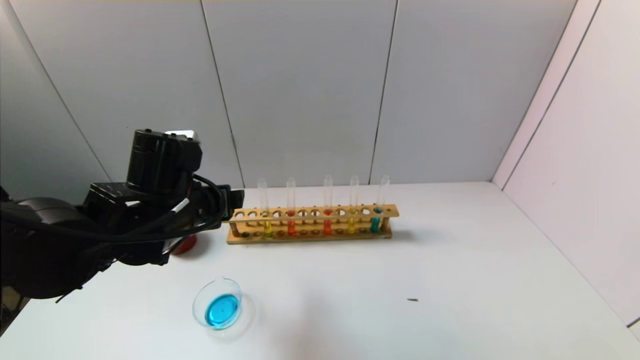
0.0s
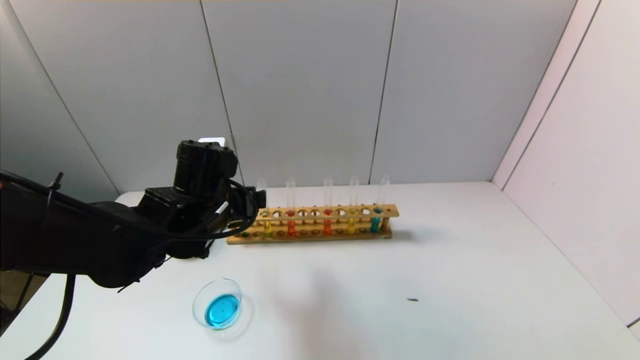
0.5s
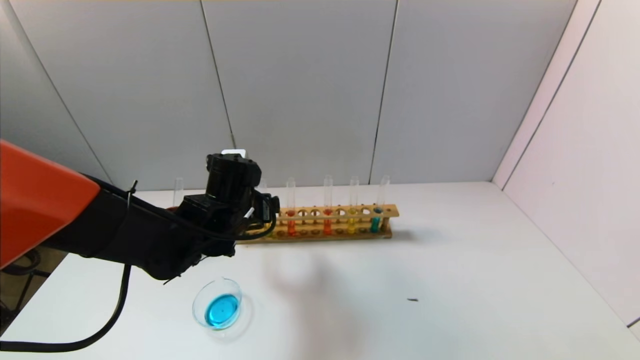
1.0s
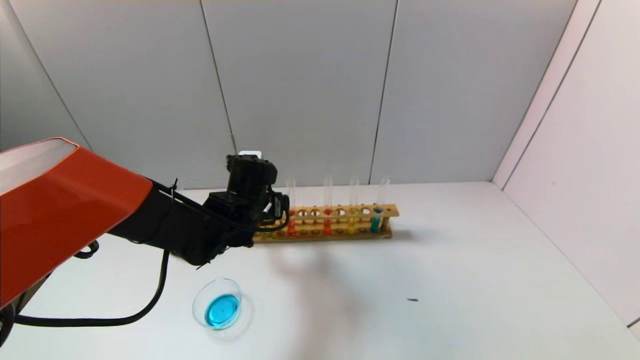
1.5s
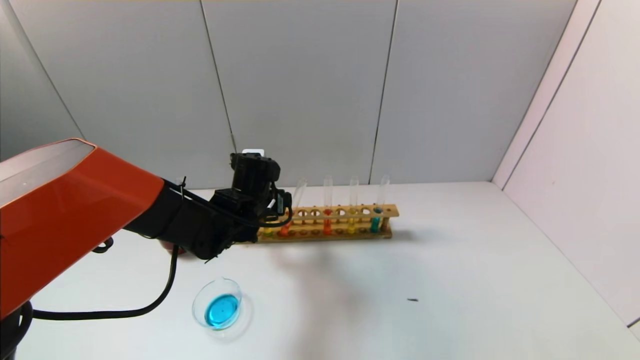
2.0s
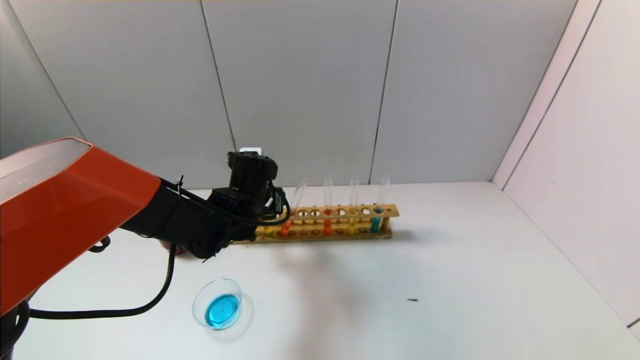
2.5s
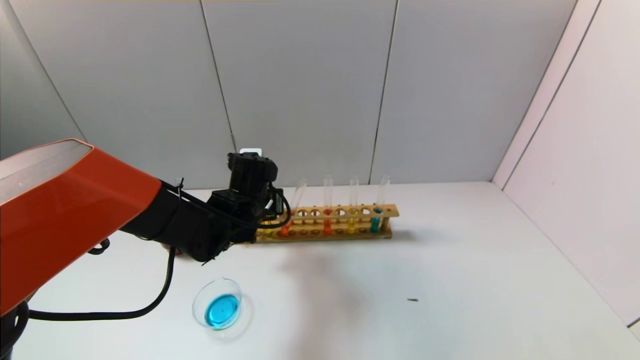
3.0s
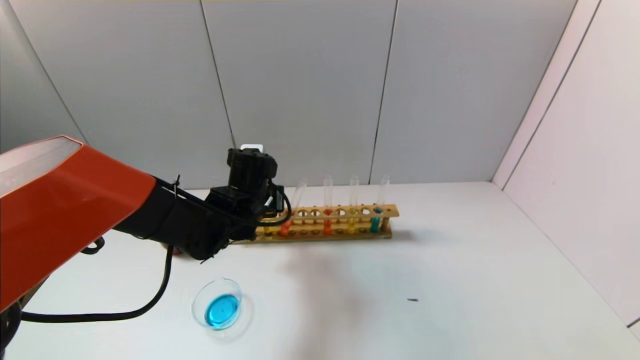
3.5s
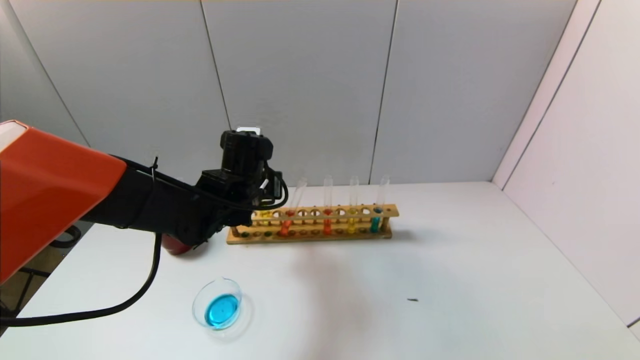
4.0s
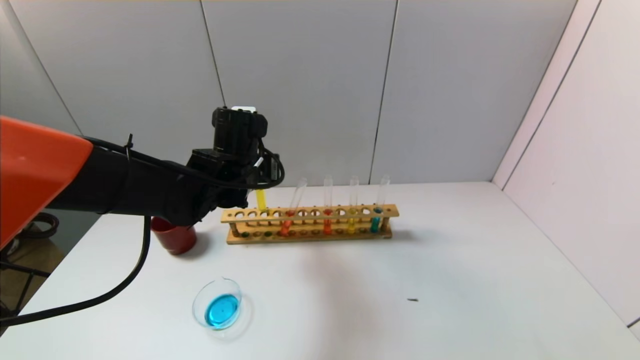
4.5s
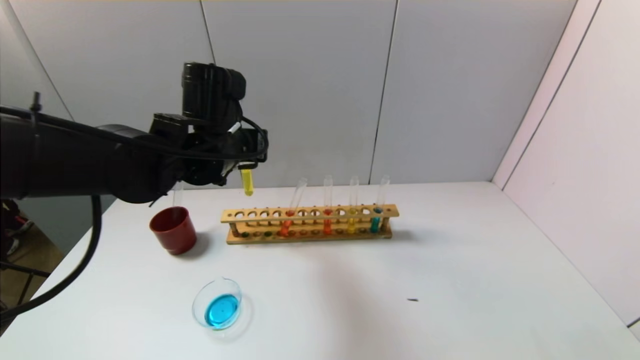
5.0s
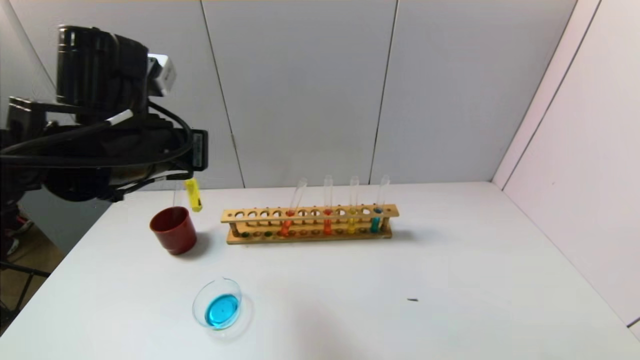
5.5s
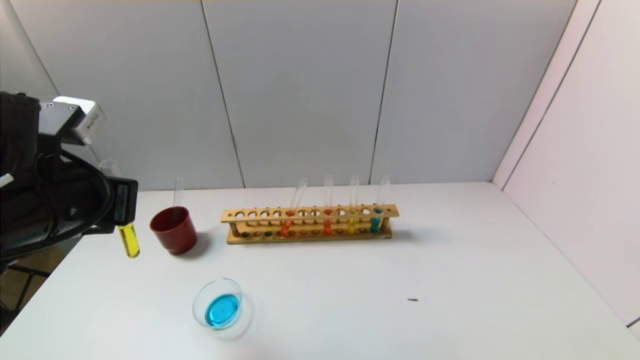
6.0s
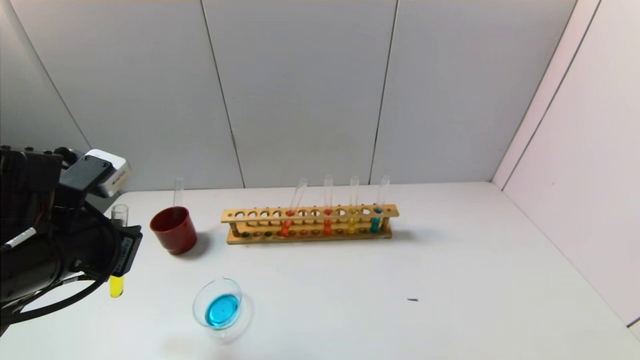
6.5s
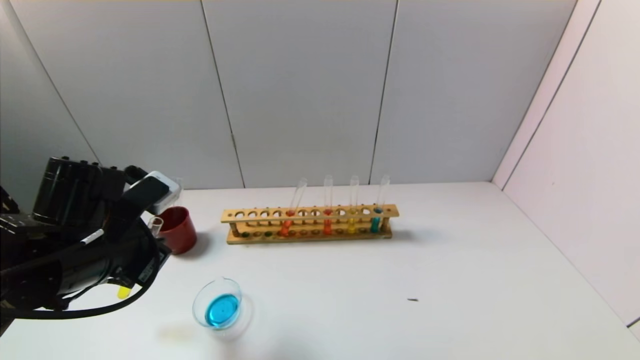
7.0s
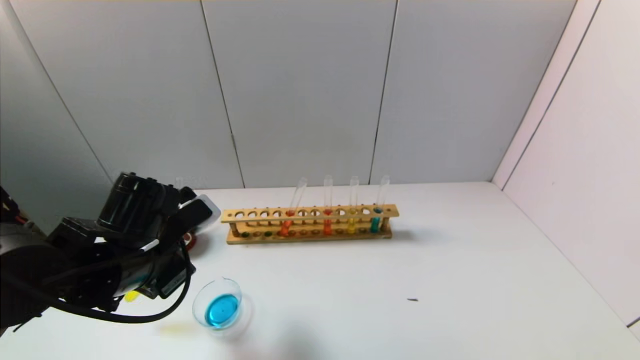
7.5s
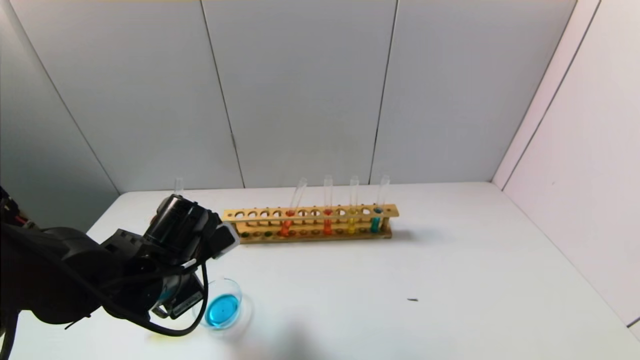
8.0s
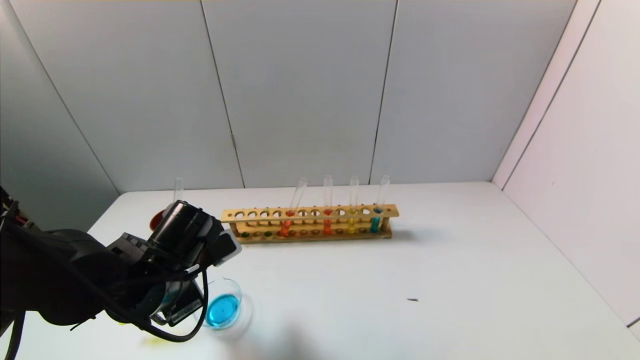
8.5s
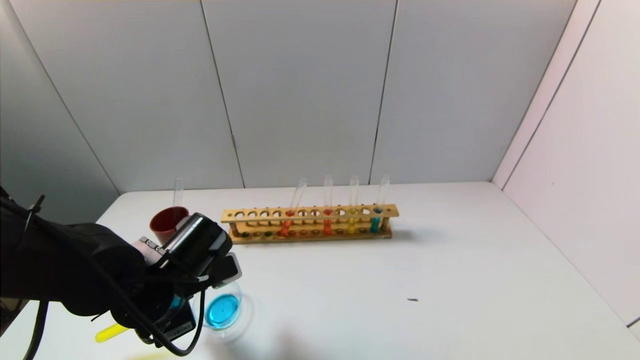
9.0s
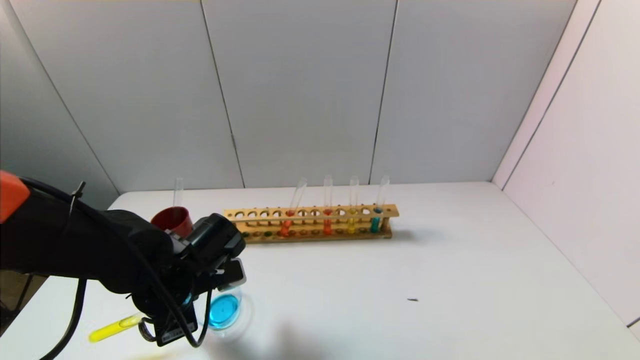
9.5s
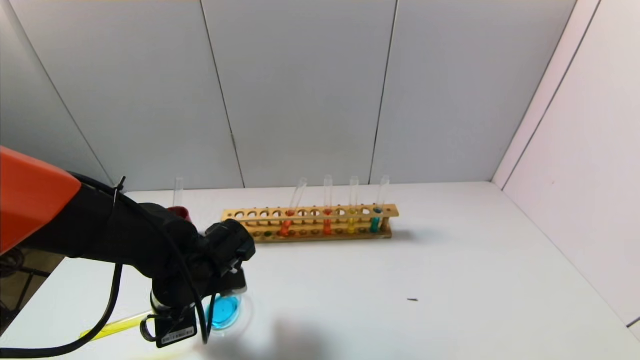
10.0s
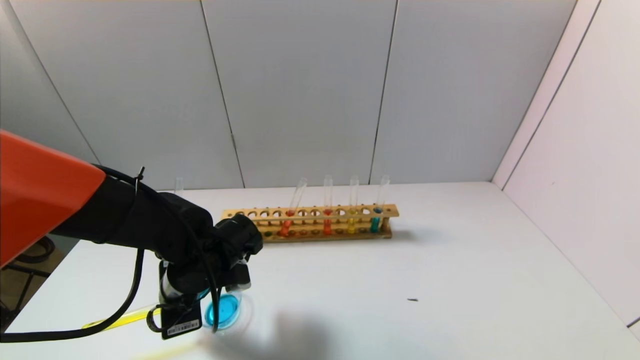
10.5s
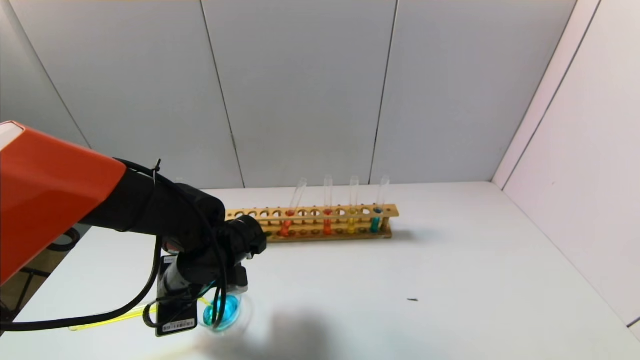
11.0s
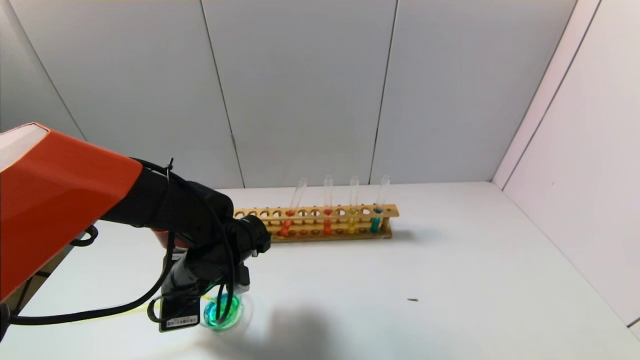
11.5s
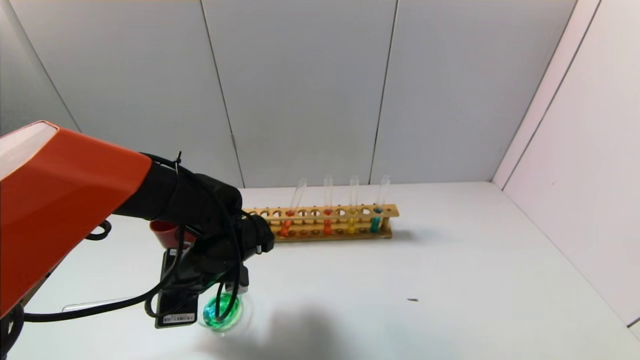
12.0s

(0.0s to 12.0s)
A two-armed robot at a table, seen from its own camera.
Task of the whole recording: pick up the test tube with yellow pigment and the test tube with blue pigment by grippers and pour them into the beaker.
Step, 0.0s - 3.0s: Grasp the yellow reagent with the left gripper.
0.0s - 2.0s: The left gripper shifts approximately 15 cm forward, downward and to the right.
2.0s - 4.0s: The left gripper closes its fingers.
4.0s - 6.0s: The left gripper heads backward, to the left and upward, covering roughly 20 cm.
6.0s - 8.0s: The left gripper is displaced downward and to the right by about 15 cm.
10.0s - 12.0s: The grippers make only small movements.

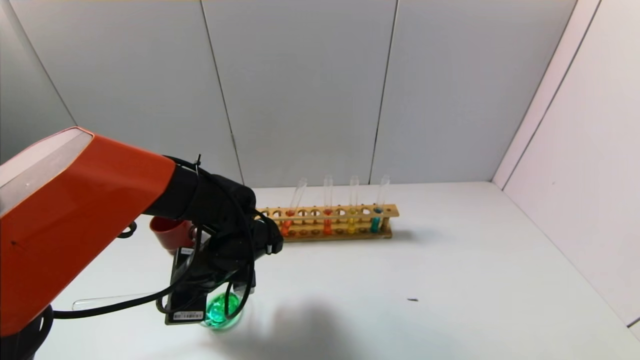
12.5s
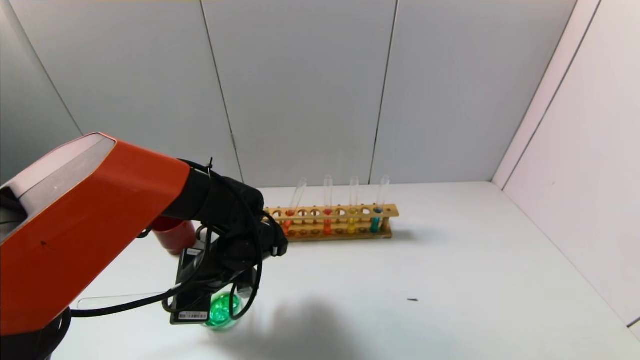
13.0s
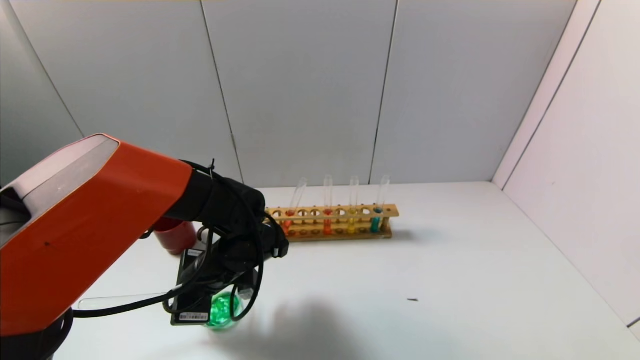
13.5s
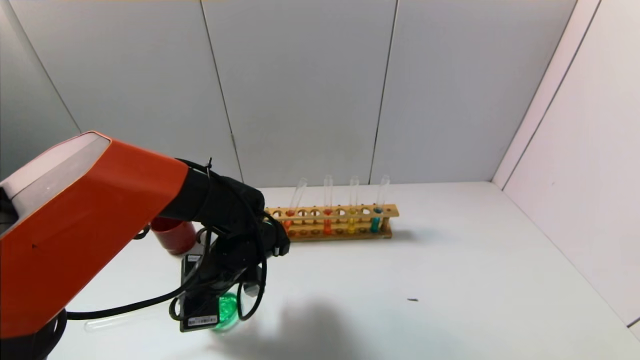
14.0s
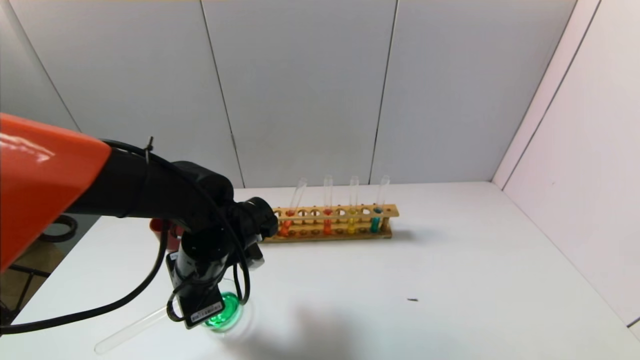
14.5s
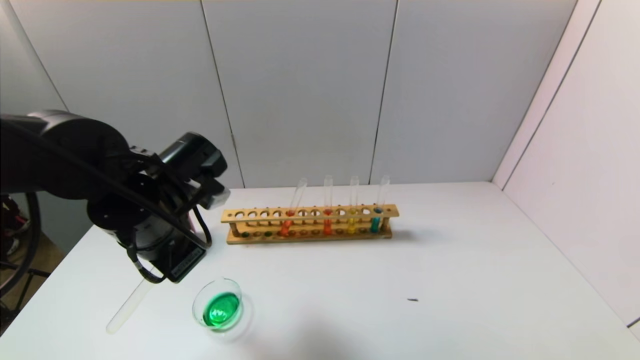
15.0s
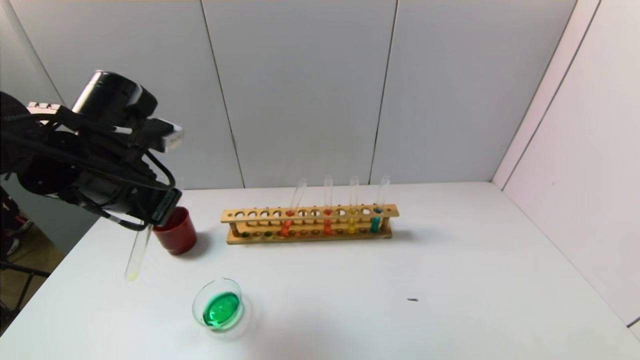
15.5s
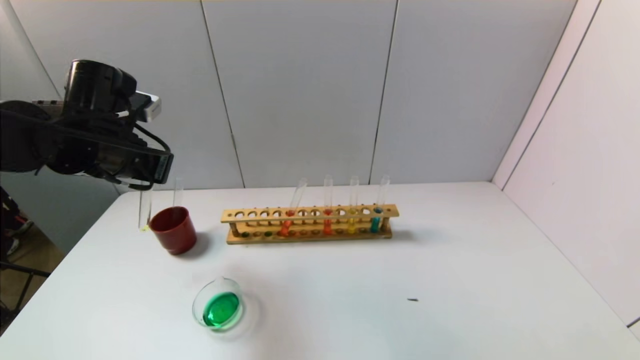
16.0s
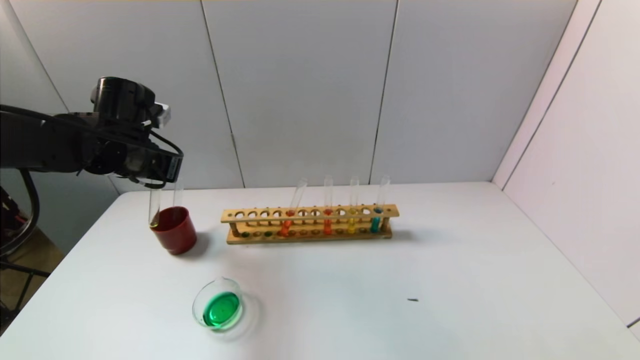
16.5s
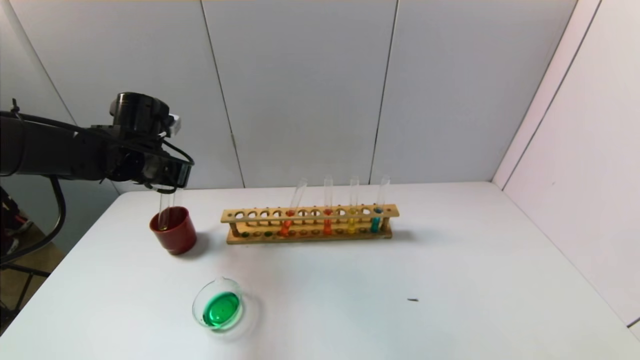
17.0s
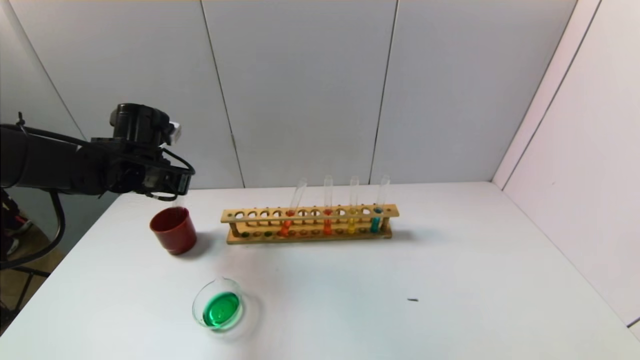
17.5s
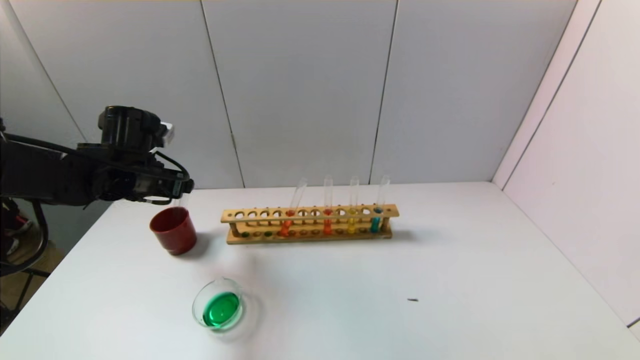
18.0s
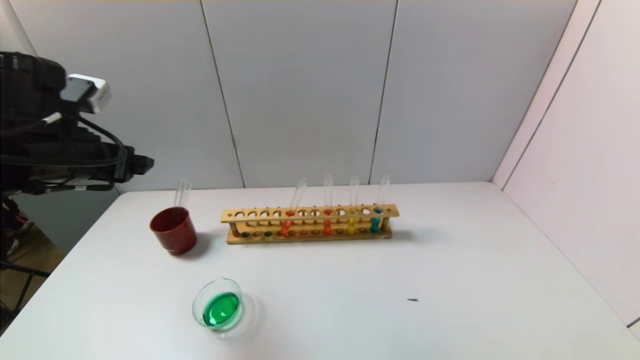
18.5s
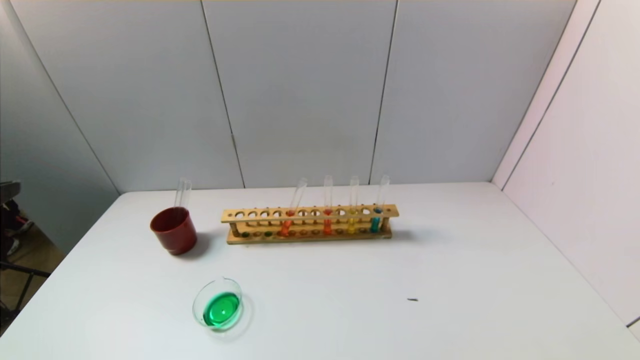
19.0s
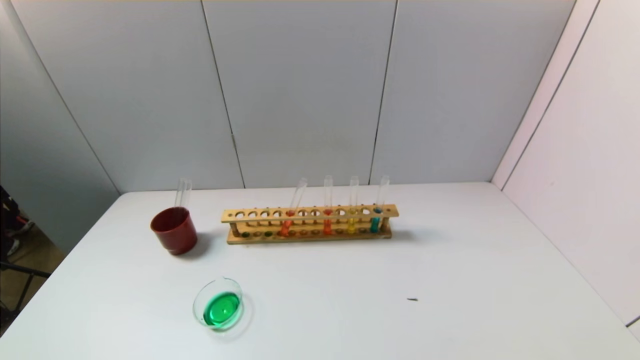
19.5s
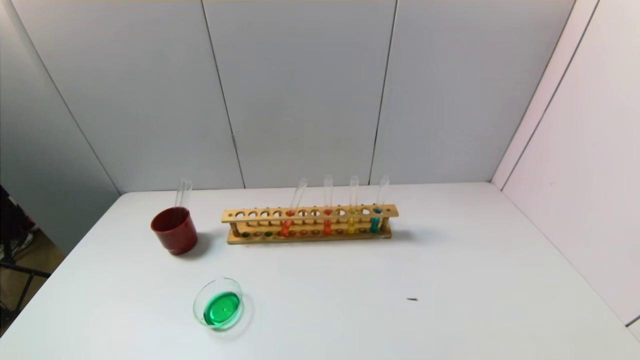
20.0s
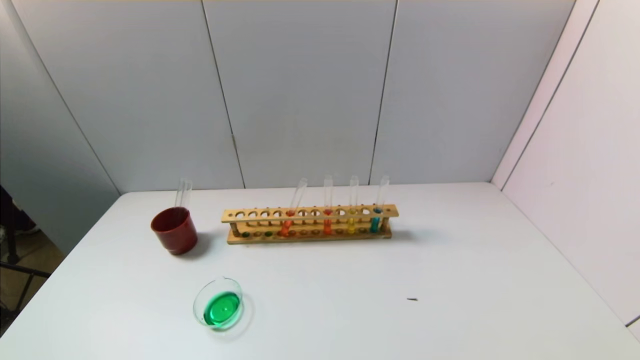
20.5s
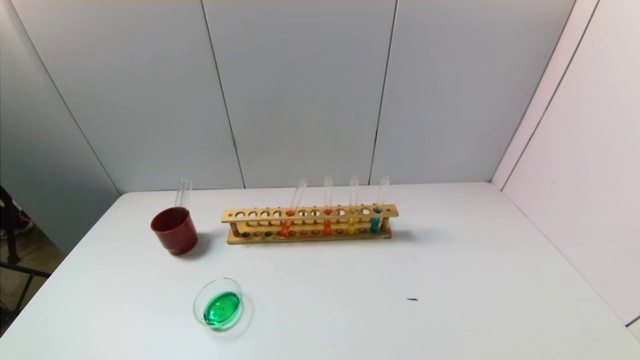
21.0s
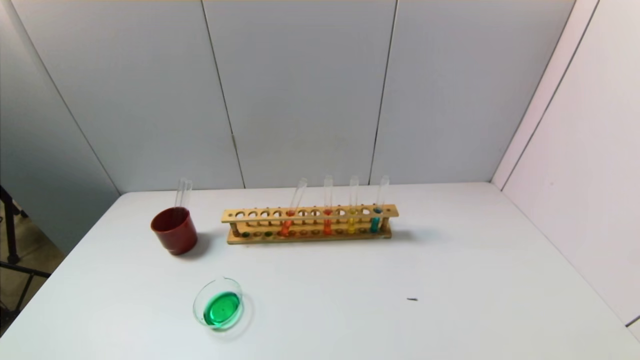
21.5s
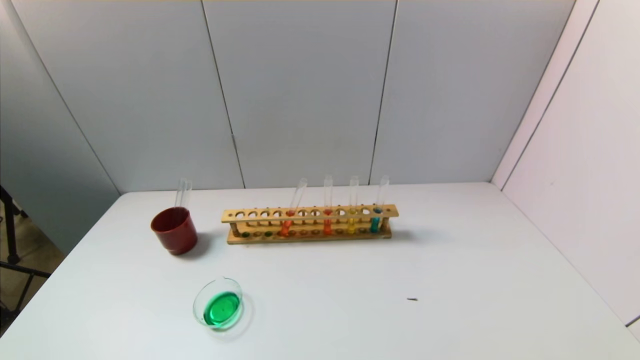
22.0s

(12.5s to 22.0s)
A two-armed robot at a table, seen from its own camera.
Task of the whole recording: pick up the test tube with yellow pigment and the test tube with blue pigment by grippers and pour them into the beaker.
Step, 12.5s - 14.5s: Pour the yellow reagent into the graduated cylinder with the left gripper.
Step, 15.0s - 18.0s: Place the test tube into the brown cup with the left gripper.
14.5s - 16.5s: The left gripper is displaced to the left, forward and upward by about 20 cm.
16.5s - 18.0s: The left gripper opens its fingers.
18.0s - 20.0s: The left gripper shifts roughly 40 cm backward.
